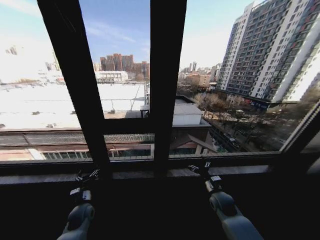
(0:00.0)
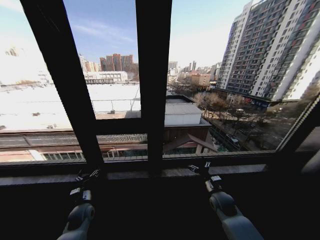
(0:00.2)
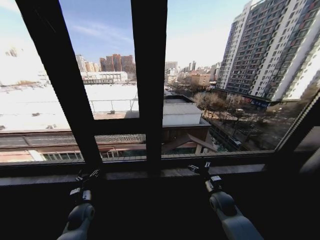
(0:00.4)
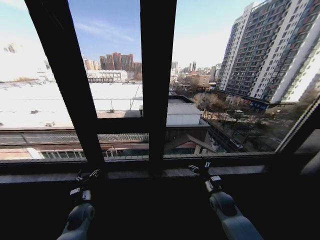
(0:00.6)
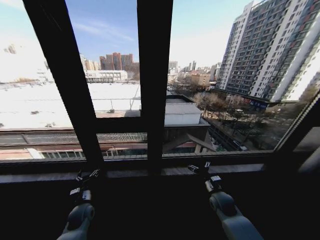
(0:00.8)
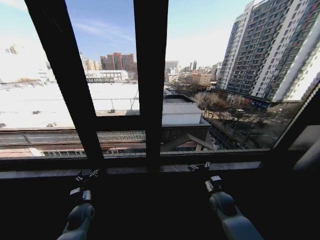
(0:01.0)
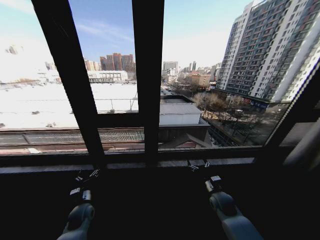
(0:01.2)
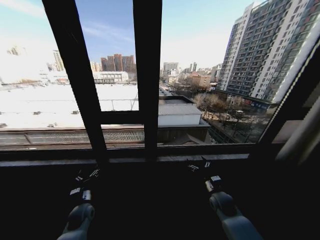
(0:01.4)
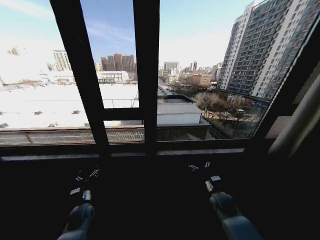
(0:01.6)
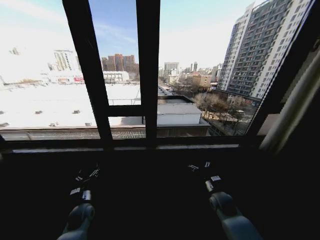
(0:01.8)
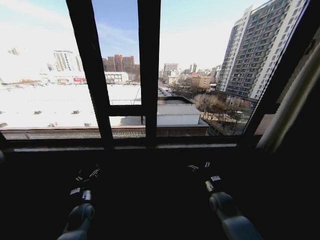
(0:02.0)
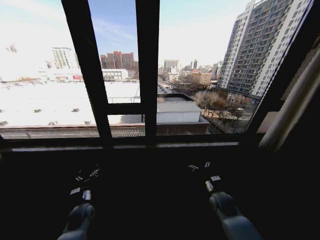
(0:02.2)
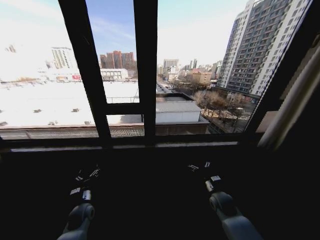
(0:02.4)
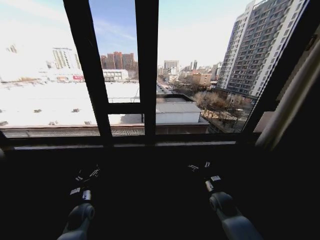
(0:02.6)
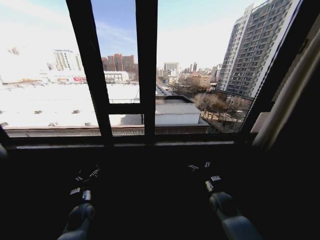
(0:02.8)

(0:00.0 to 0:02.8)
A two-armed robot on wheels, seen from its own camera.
Task of the whole recording: Open the curtains by pulling them apart, changing their state from closed to fully open.
0:00.0 - 0:01.4: The two grippers keep their place.

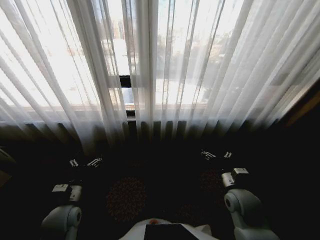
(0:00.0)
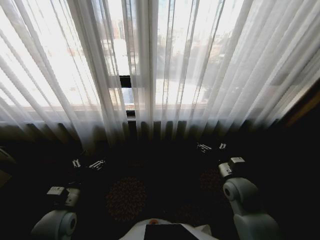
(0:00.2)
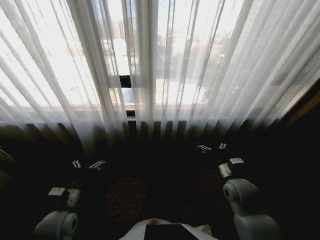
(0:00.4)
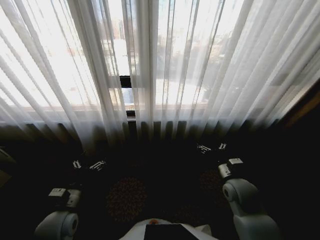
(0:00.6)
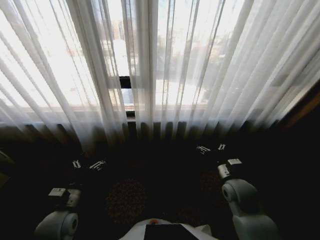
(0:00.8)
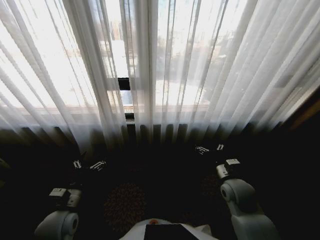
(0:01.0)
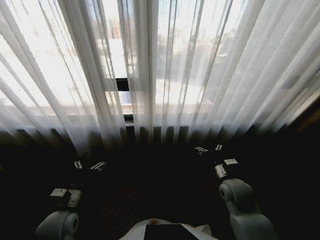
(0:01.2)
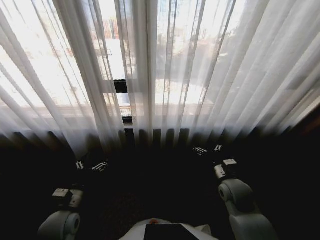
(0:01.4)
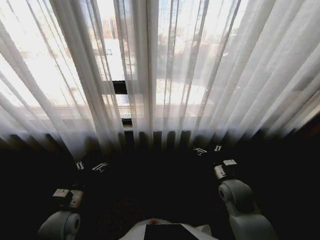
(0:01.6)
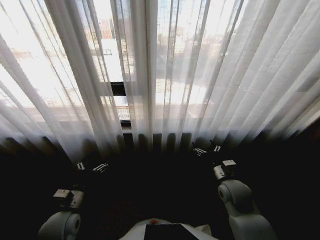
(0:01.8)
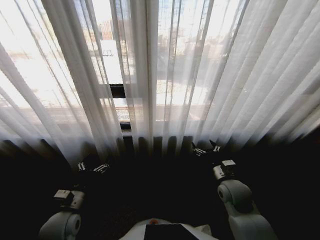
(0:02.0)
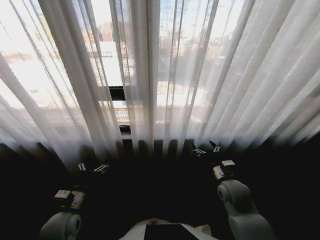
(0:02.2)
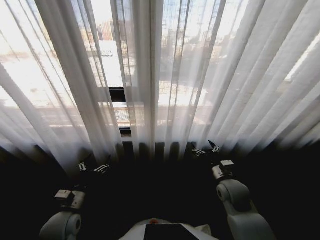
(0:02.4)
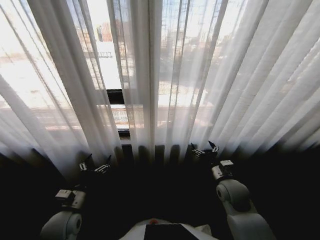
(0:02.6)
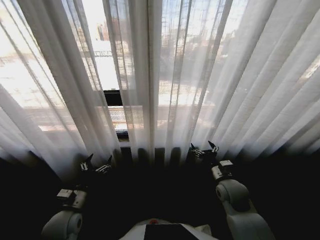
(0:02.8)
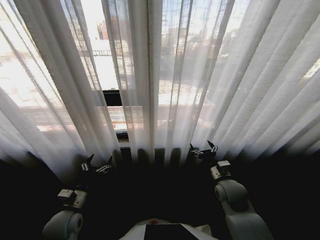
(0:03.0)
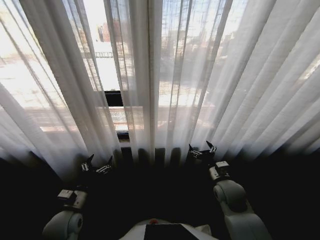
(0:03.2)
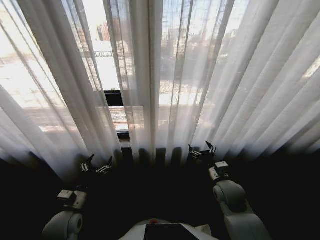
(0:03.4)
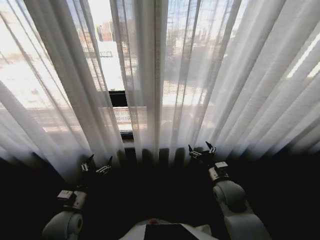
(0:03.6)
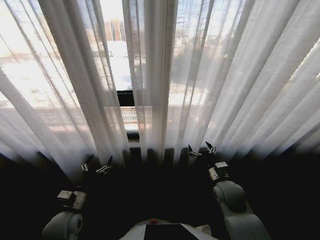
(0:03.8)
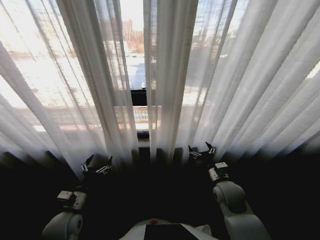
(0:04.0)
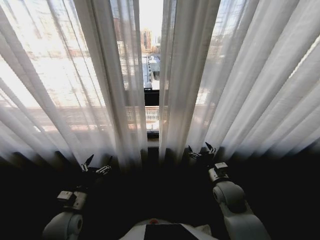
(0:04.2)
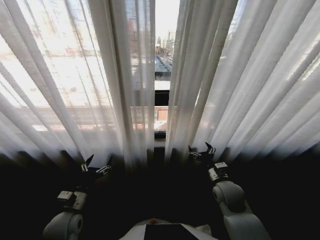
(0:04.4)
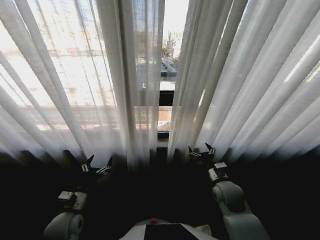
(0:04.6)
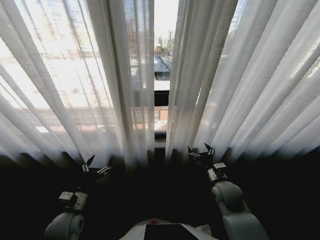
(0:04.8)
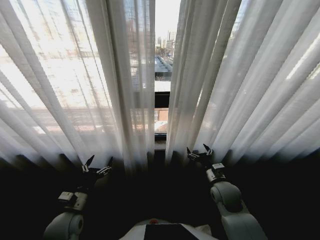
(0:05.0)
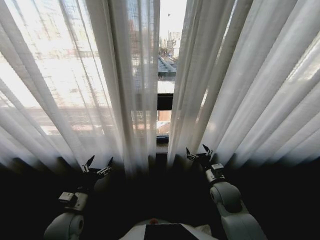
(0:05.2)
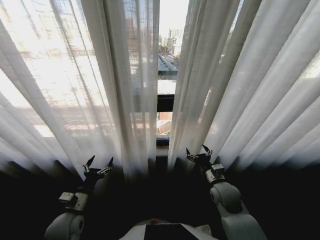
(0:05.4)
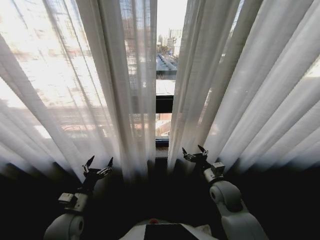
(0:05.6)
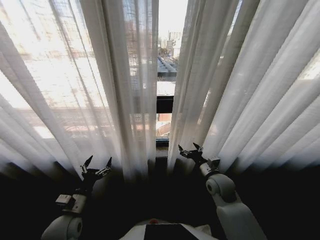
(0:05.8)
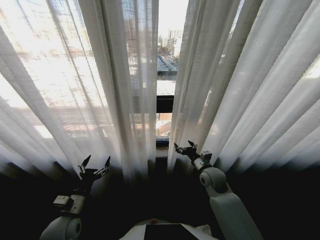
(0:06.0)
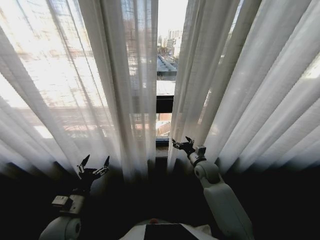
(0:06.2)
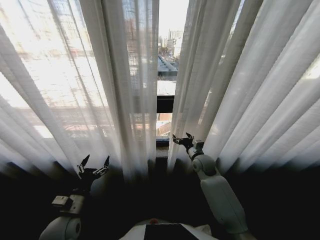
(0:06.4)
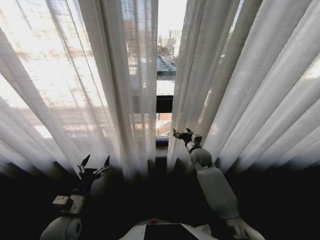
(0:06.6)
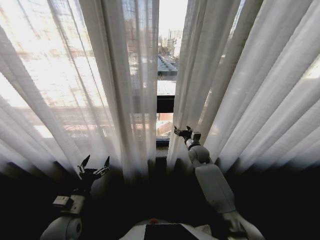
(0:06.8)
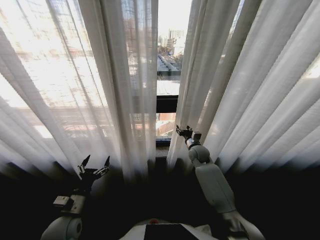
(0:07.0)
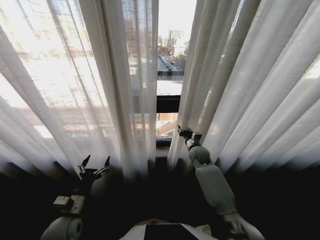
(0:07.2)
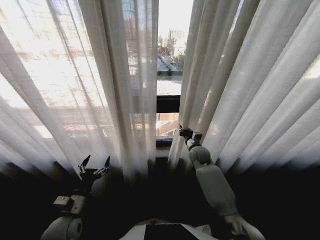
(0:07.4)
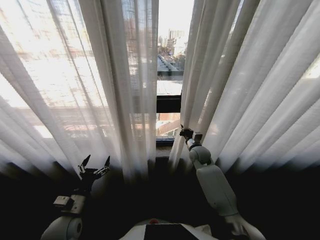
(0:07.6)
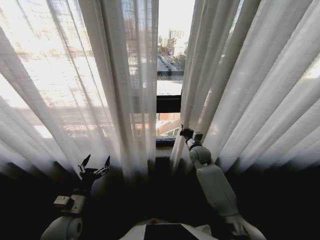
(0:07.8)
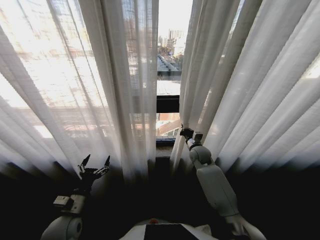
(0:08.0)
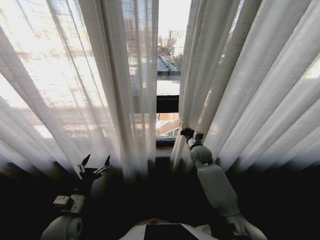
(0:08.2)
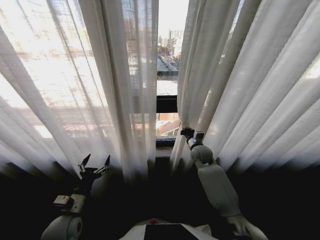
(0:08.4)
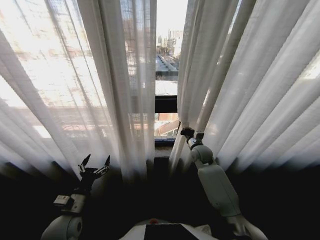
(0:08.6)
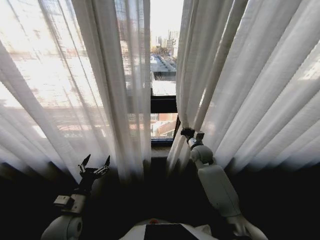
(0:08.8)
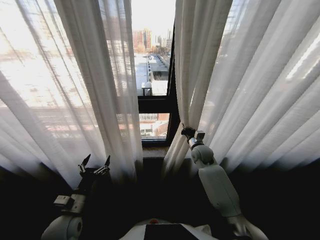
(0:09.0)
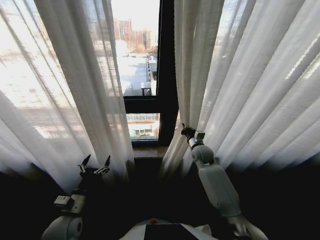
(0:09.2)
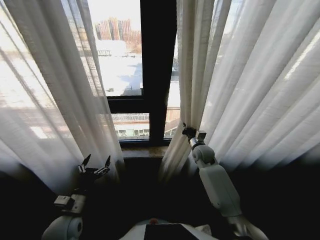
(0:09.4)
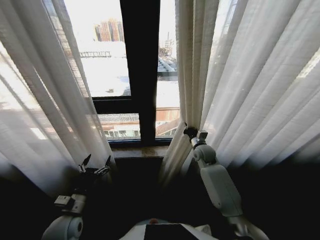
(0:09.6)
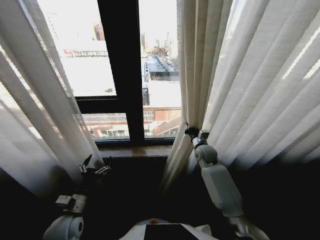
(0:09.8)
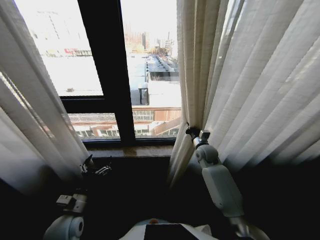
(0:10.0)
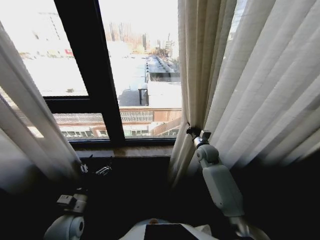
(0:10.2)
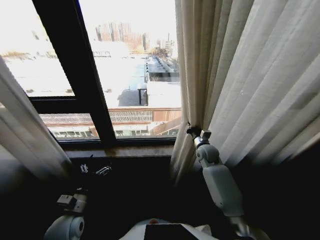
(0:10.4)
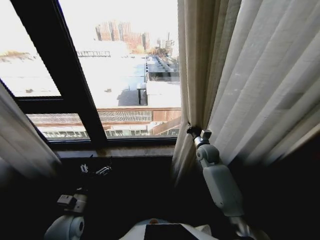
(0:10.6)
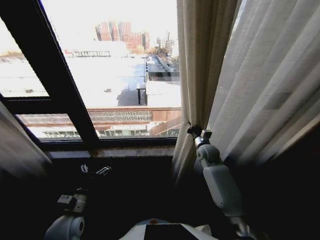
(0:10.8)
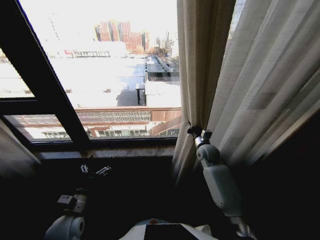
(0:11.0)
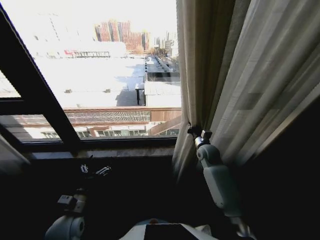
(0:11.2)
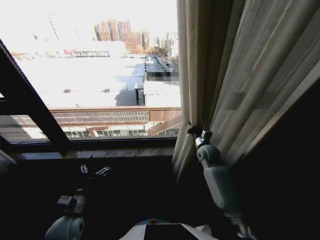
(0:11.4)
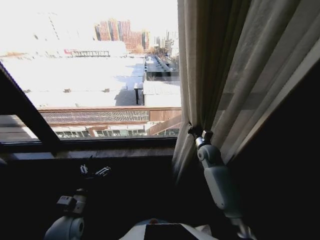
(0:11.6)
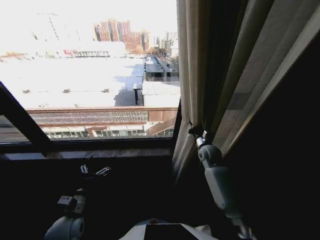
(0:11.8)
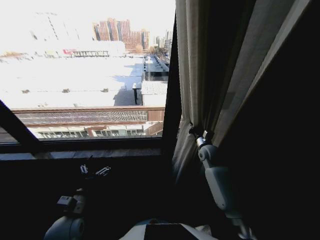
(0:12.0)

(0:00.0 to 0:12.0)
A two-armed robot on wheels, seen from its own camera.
Task of the whole recording: Open the curtains by pulling them apart, changing their state from closed to fully open.
0:04.4 - 0:06.0: The right gripper travels forward by about 5 cm.
0:06.0 - 0:07.6: The right gripper heads forward, covering approximately 10 cm, and closes.

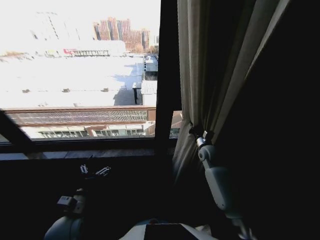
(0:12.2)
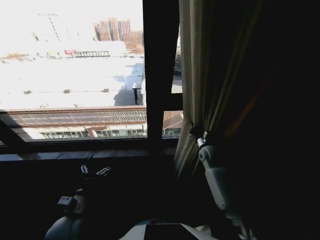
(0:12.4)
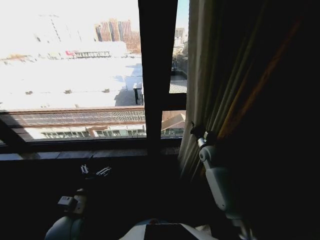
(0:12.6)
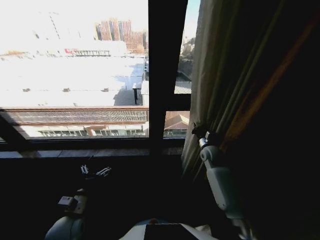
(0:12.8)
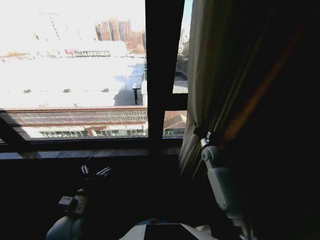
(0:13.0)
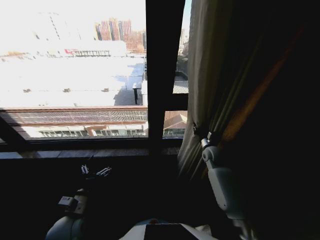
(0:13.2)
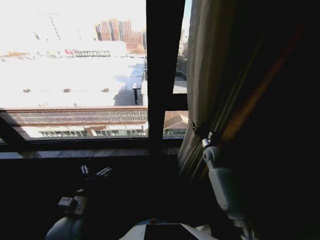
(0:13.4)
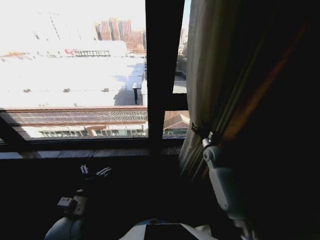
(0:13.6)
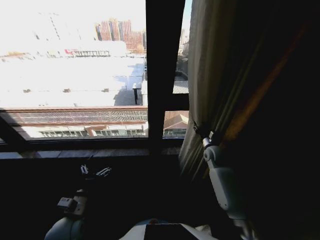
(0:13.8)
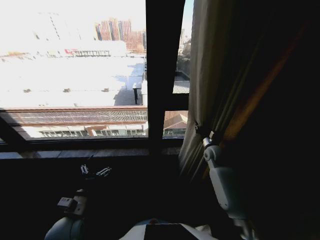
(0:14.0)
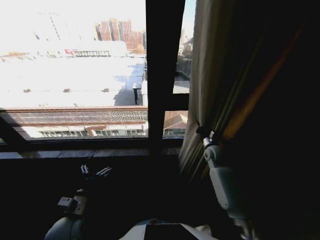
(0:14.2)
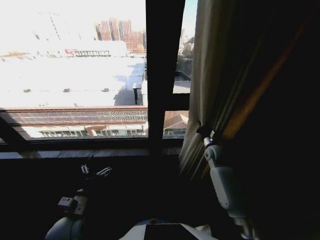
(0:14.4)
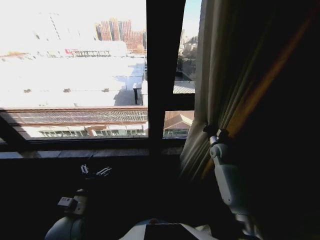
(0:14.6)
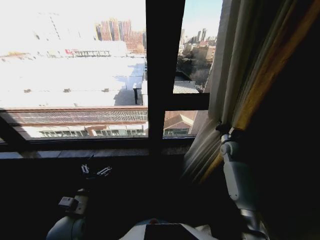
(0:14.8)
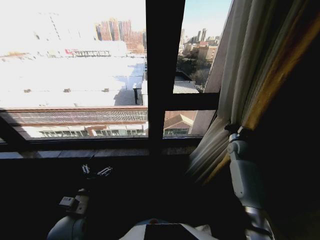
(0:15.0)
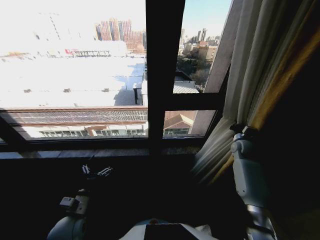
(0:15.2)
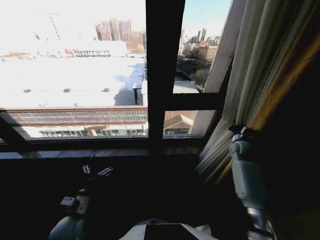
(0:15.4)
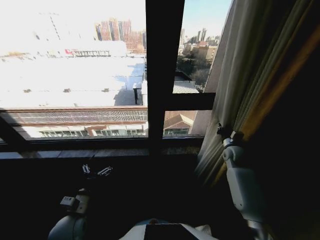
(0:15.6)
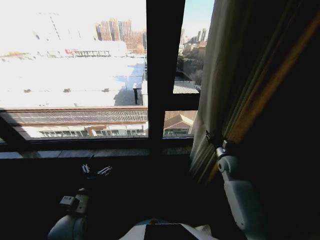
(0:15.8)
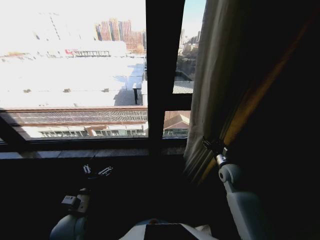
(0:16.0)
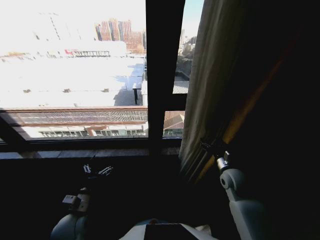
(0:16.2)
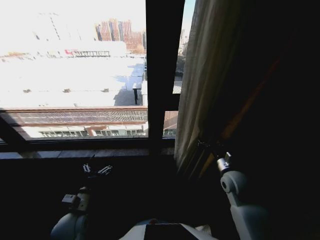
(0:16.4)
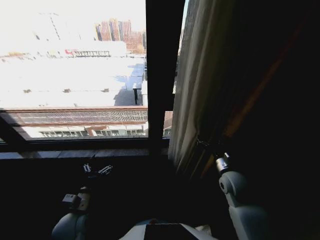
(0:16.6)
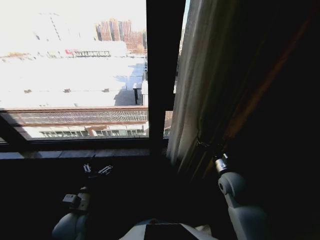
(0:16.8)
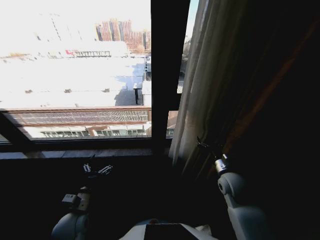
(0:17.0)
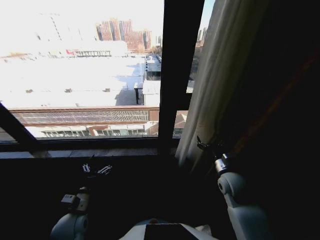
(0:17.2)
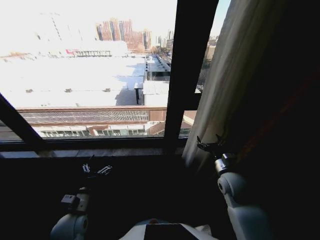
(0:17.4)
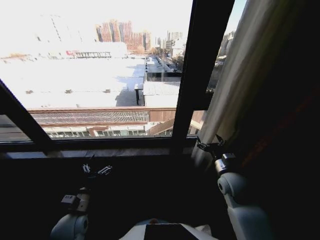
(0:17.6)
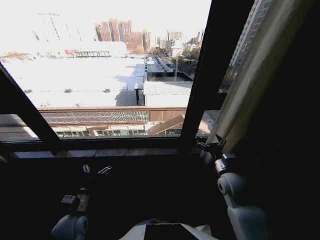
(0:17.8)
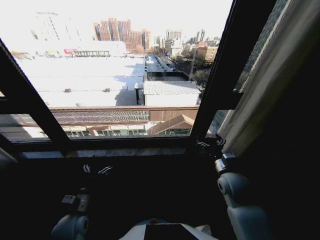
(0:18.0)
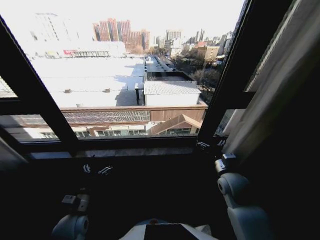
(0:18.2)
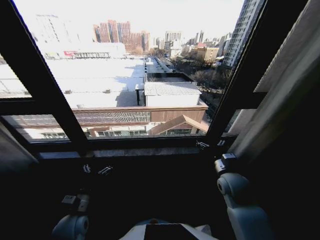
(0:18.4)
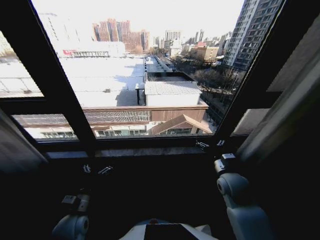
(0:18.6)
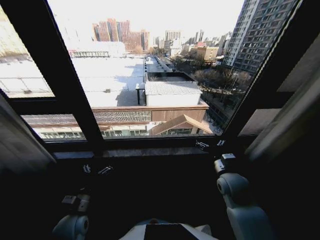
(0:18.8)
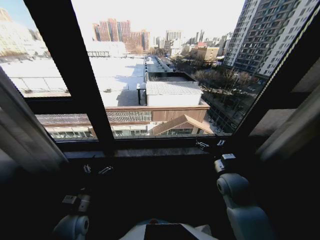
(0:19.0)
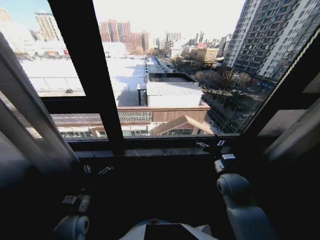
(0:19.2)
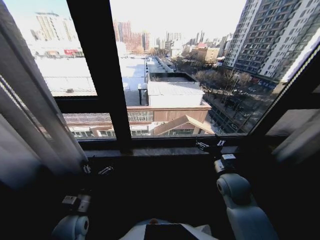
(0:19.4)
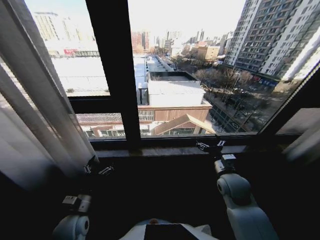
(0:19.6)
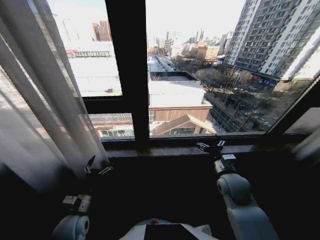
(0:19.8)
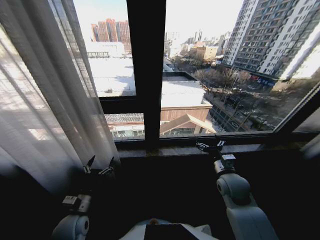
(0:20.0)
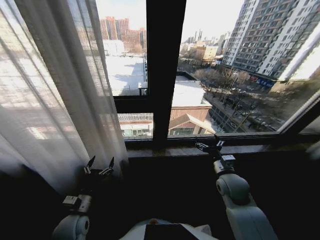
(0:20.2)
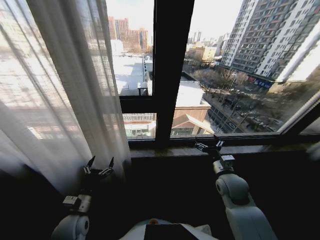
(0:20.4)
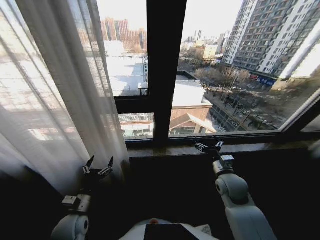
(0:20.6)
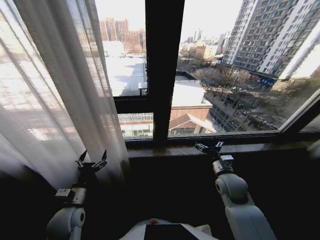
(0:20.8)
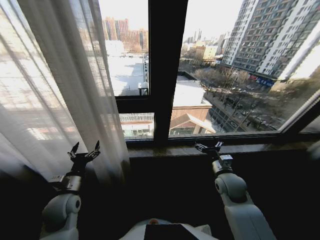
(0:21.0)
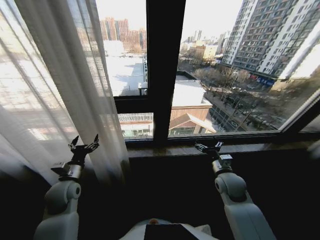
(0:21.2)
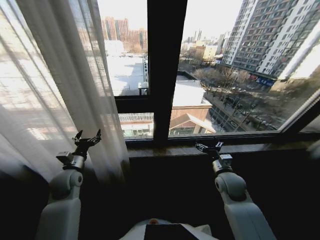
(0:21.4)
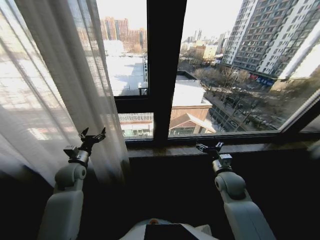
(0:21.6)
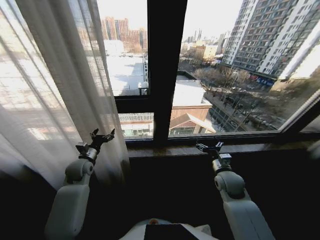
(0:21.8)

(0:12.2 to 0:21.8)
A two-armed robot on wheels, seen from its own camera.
Task of the whole recording: Open the curtains by pulling them apart, changing their state from closed to fully open.
0:12.2 - 0:13.8: The right gripper opens.
0:13.8 - 0:15.4: The right gripper travels to the right by approximately 15 cm, and closes its fingers.
0:15.4 - 0:17.0: The right gripper is displaced backward and to the left by roughly 20 cm, and opens up.
0:20.2 - 0:21.8: The left gripper travels forward by about 20 cm.
